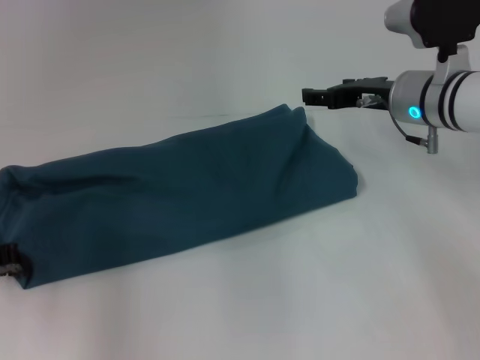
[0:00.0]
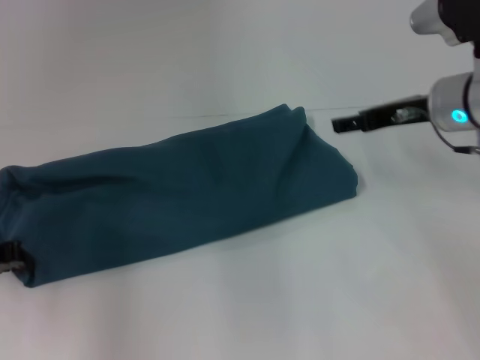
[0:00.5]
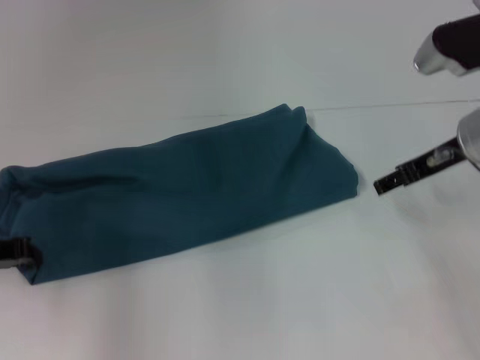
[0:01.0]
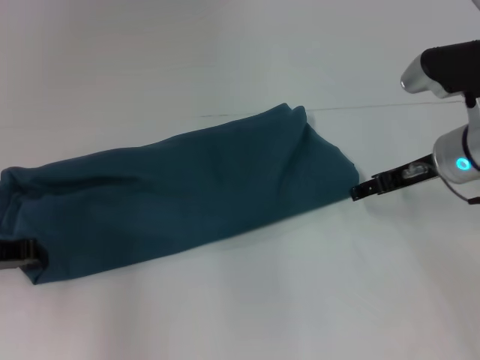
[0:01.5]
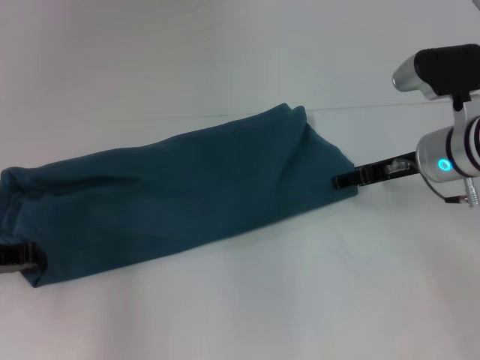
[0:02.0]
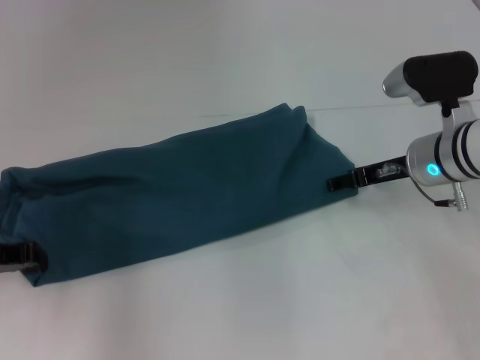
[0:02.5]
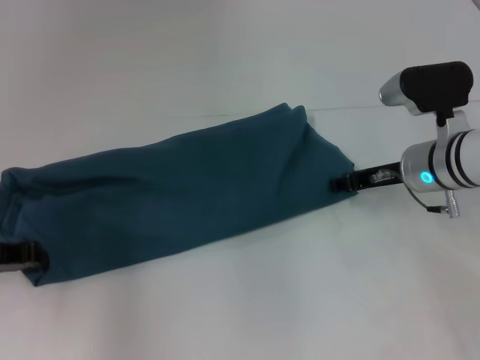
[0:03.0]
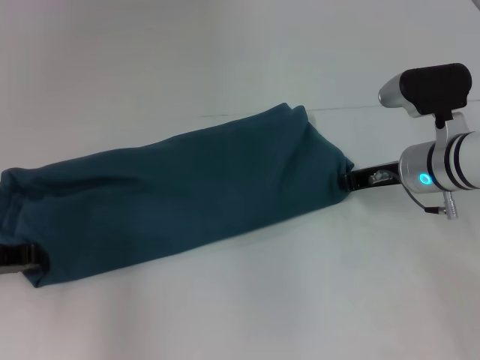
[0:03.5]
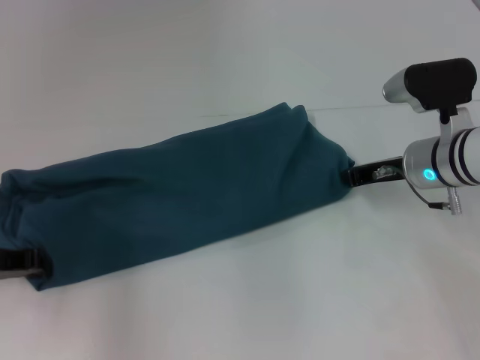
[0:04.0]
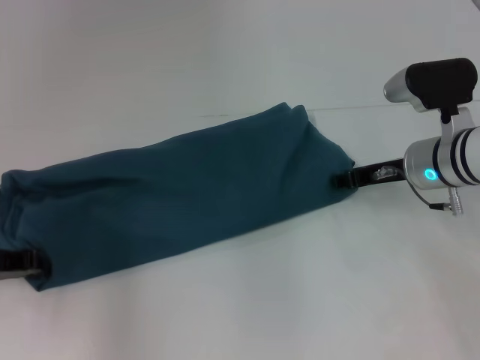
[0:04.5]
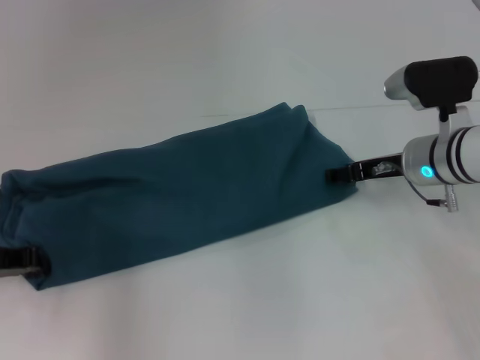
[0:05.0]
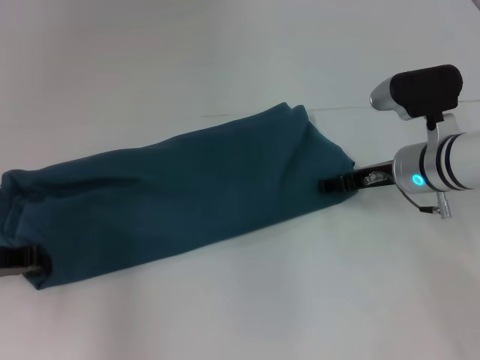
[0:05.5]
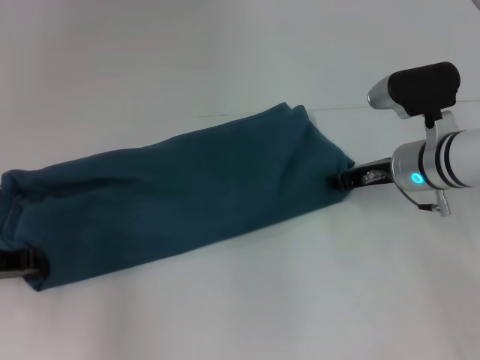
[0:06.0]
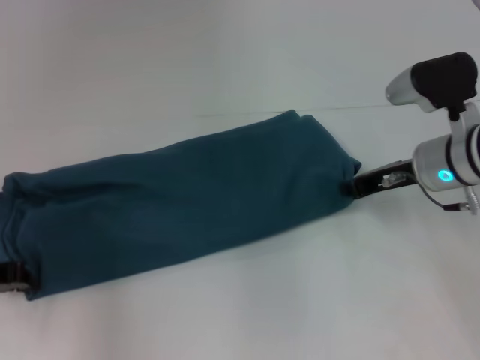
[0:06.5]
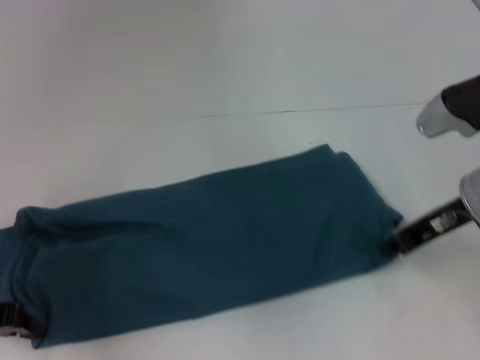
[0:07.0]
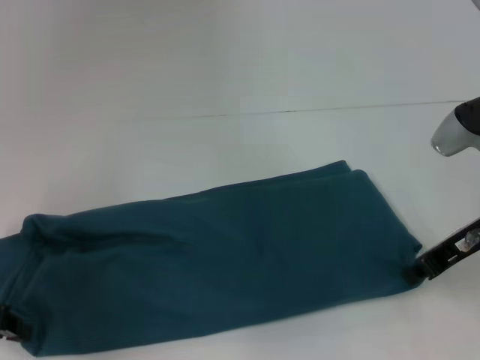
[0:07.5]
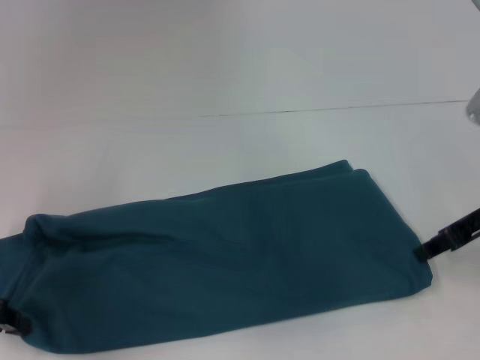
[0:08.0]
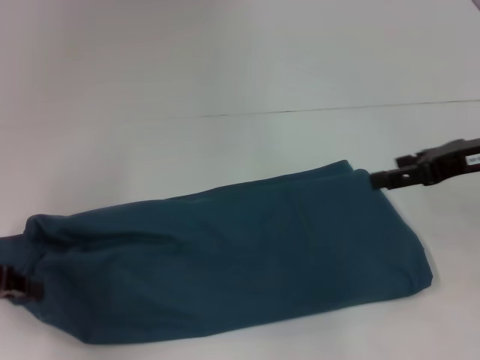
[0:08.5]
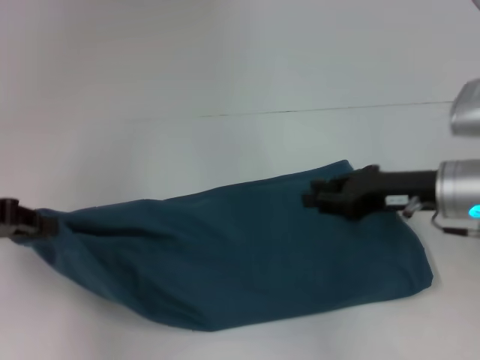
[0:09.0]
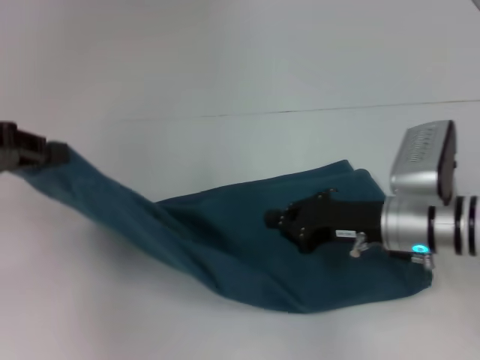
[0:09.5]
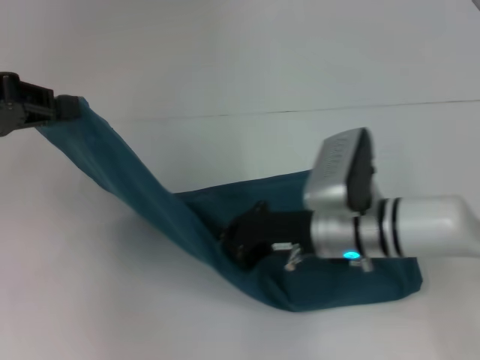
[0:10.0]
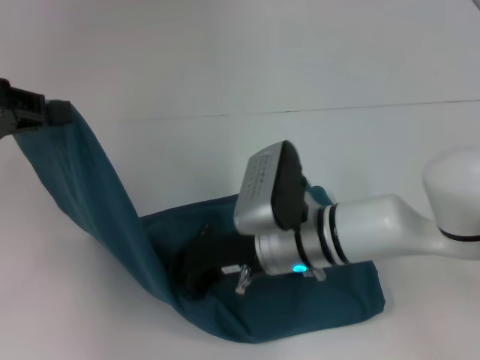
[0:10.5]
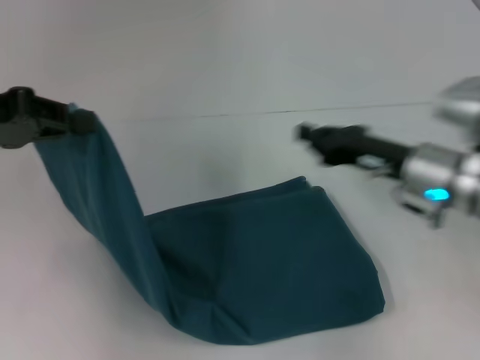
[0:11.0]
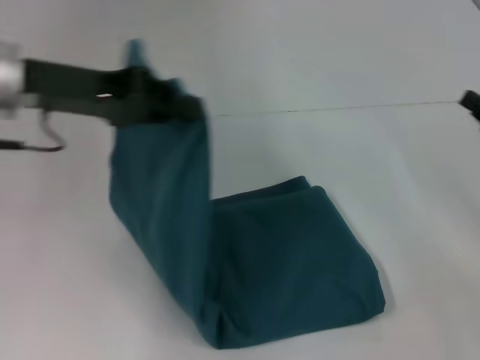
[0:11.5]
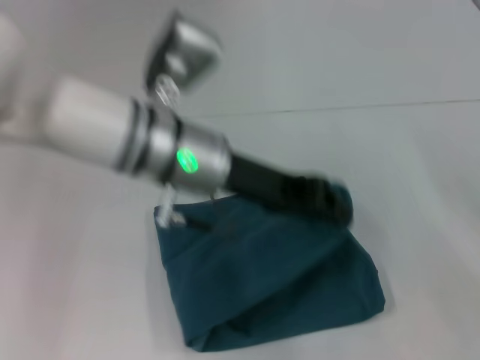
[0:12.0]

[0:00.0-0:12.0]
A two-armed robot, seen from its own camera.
Step, 0:00.0 to 0:07.5: Pull the clothes with your left hand.
Step, 0:00.0 to 0:07.5: Pull the clothes with your right hand.
Step, 0:08.0 to 0:10.5: Press the middle of the clothes with your right hand.
0:02.0 to 0:04.0: The right gripper closes up.
0:04.0 to 0:06.0: The right gripper opens up.
0:06.0 to 0:08.0: The right gripper travels to the right, upward and backward by some 10 cm; the left gripper changes place by approximately 5 cm.
0:08.0 to 0:10.0: The right gripper moves to the left and downward, some 20 cm, and opens, then closes once more; the left gripper heads upward and forward, covering roughly 15 cm.
0:10.0 to 0:12.0: The two grippers go roughly 25 cm to the right.

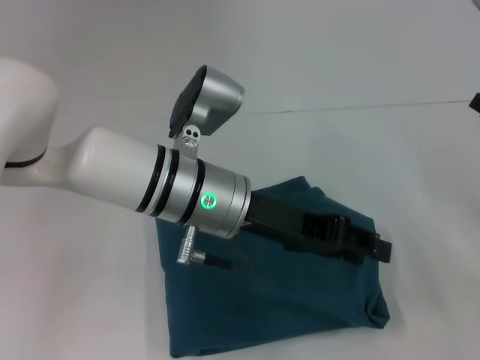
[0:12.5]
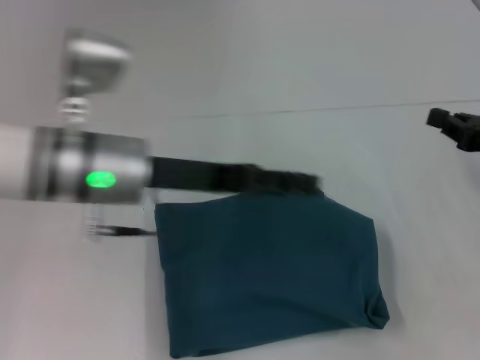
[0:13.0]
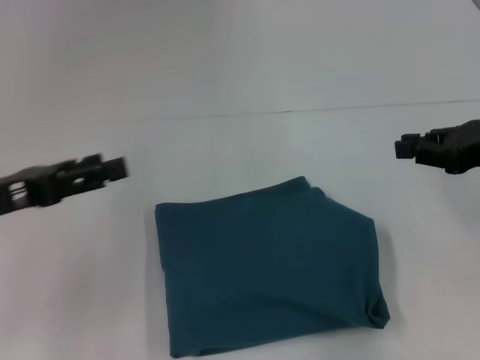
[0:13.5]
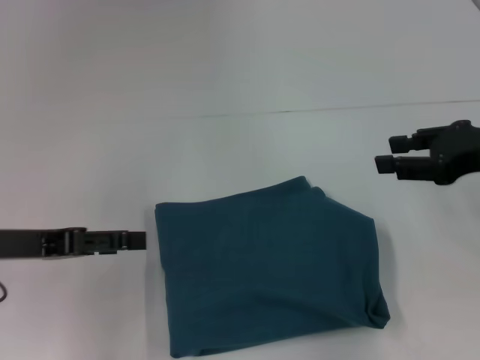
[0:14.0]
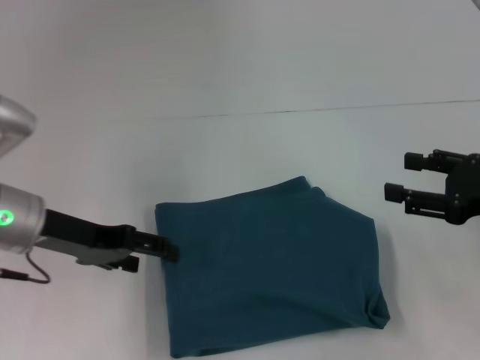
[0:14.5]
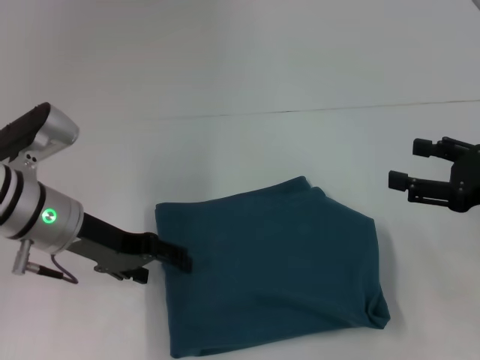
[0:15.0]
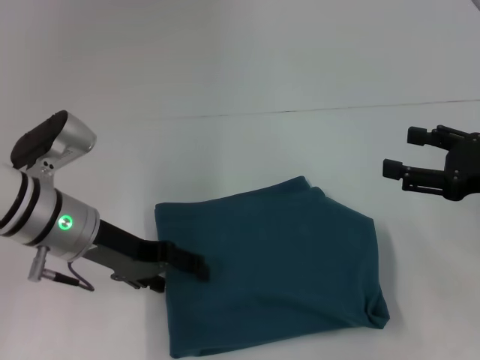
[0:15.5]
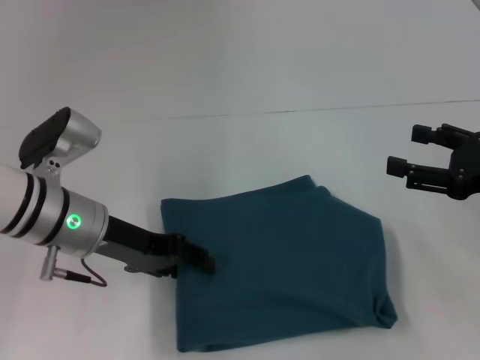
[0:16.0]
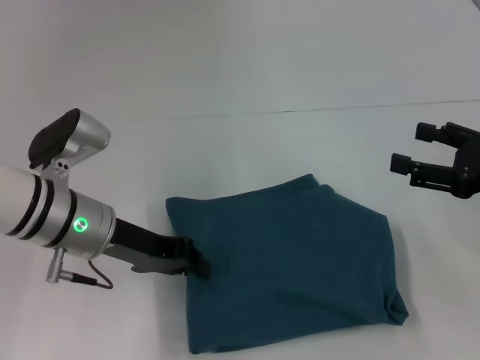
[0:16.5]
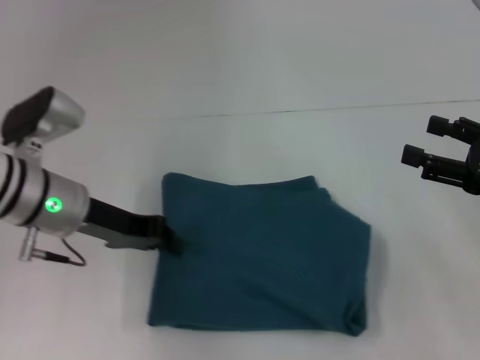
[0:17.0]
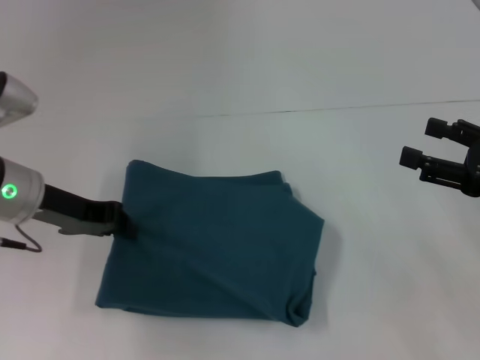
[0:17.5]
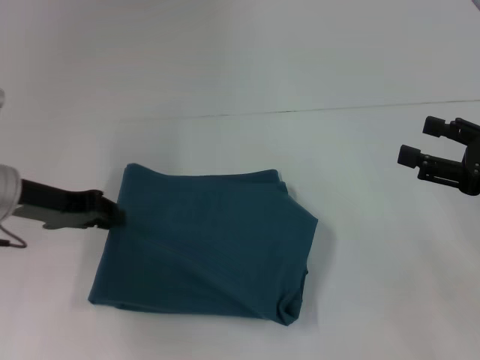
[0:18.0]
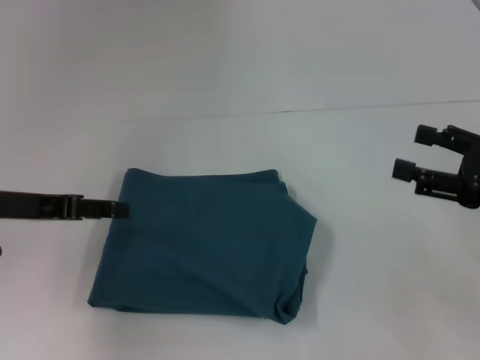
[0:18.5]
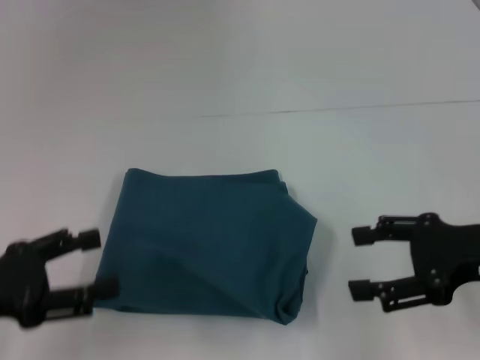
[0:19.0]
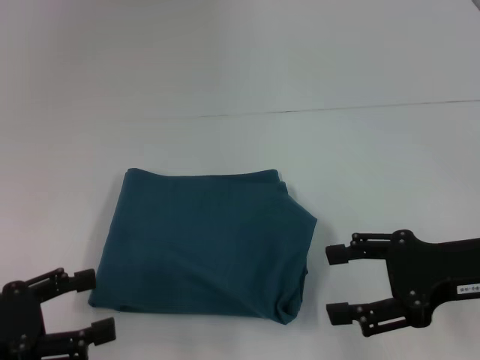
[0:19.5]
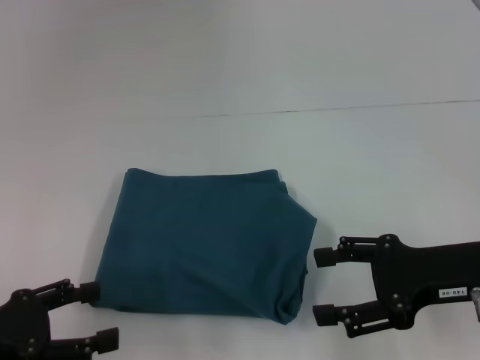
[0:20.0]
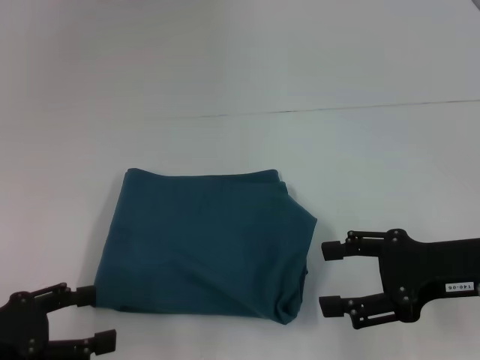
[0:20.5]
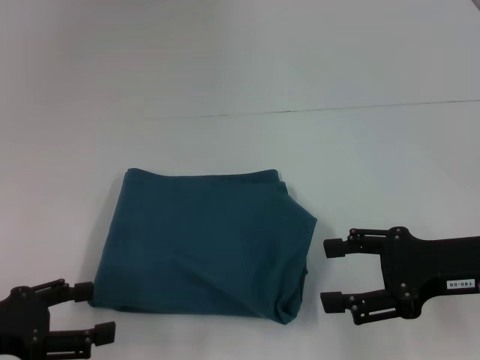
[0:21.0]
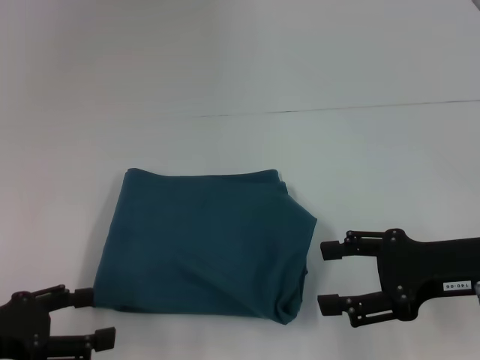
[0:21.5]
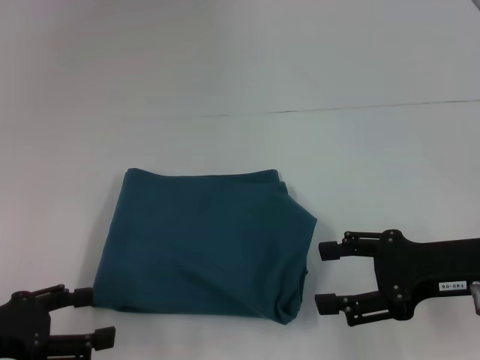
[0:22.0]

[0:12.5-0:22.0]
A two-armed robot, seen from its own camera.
0:12.5 to 0:14.5: The left gripper heads to the left, covering some 20 cm, and opens; the right gripper opens.
0:14.5 to 0:16.5: The left gripper shifts about 5 cm to the right, and closes.
0:16.5 to 0:18.0: The left gripper travels to the left by roughly 10 cm.
0:18.0 to 0:20.0: The right gripper shifts roughly 10 cm to the left, while the left gripper goes about 15 cm backward, and opens up.
0:20.0 to 0:22.0: The grippers stay close to where they were, moving slightly.

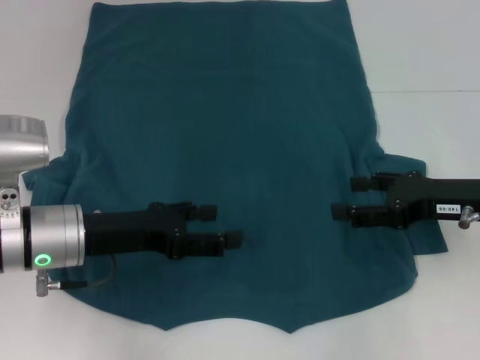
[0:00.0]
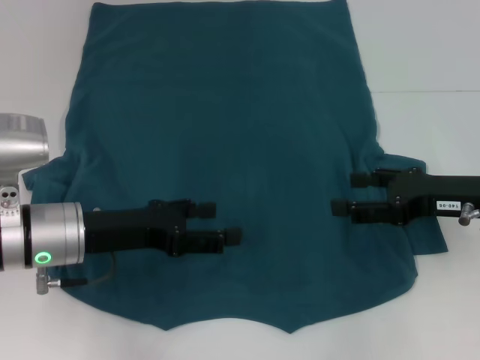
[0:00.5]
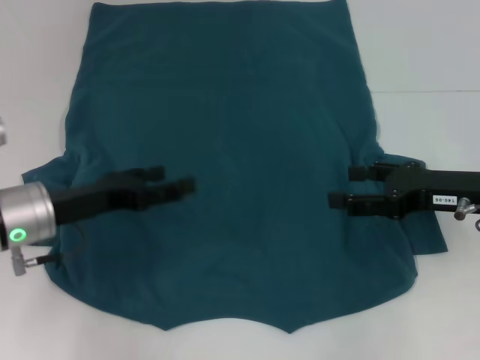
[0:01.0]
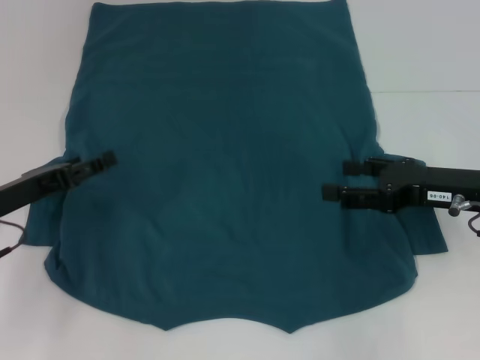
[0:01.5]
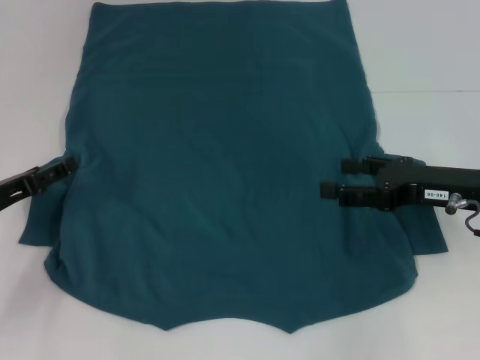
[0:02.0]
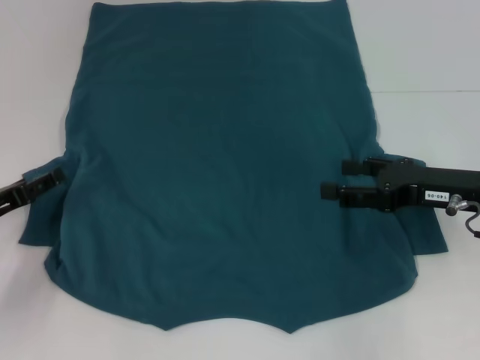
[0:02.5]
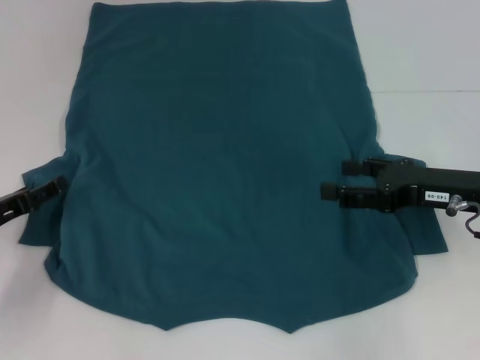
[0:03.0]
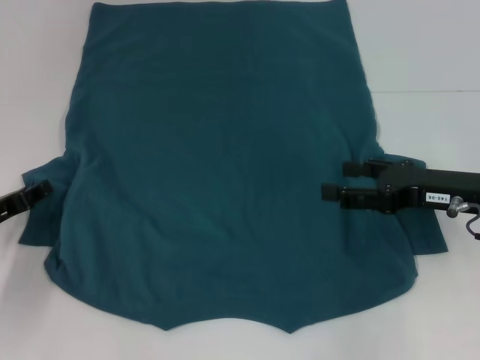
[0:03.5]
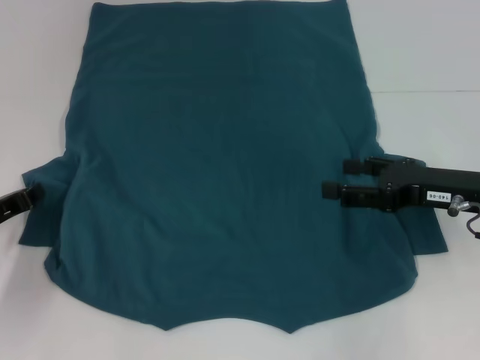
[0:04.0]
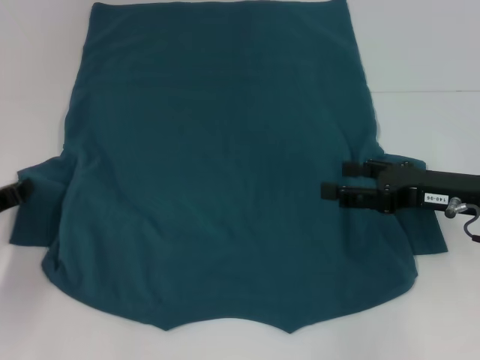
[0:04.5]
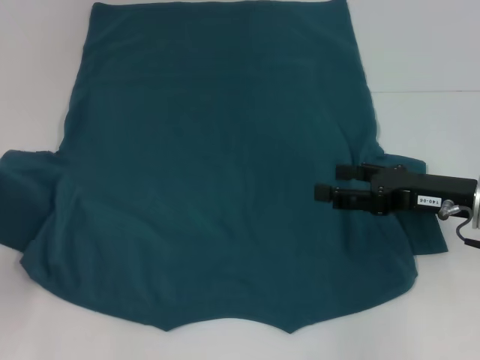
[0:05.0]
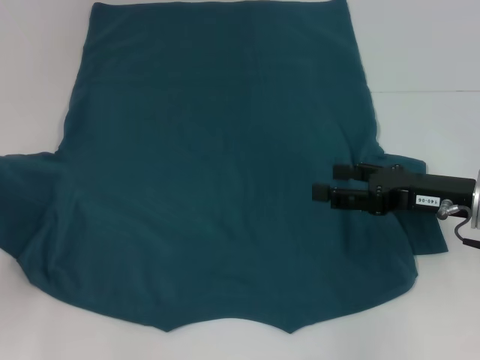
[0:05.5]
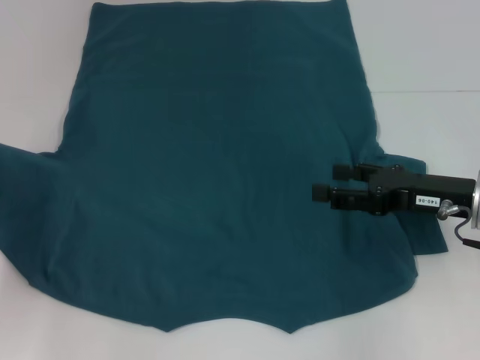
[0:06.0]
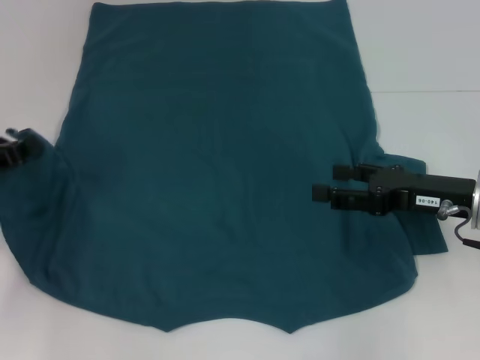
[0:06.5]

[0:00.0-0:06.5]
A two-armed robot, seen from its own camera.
0:00.0 to 0:02.0: The left gripper shifts approximately 10 cm to the left.
0:02.0 to 0:04.5: The left gripper closes.
0:04.5 to 0:06.5: The left gripper ends up some 5 cm from where it was.
